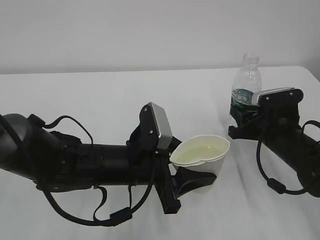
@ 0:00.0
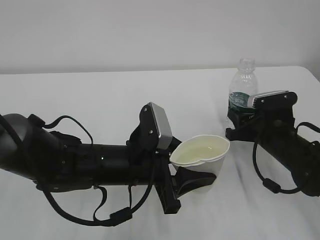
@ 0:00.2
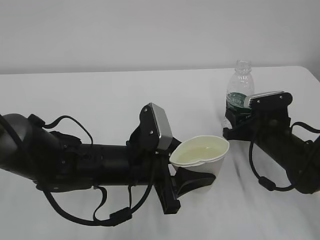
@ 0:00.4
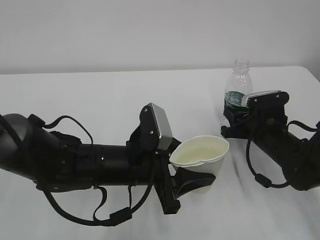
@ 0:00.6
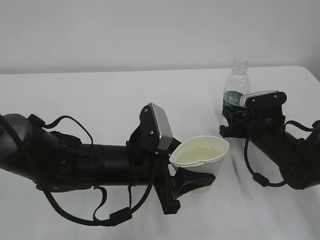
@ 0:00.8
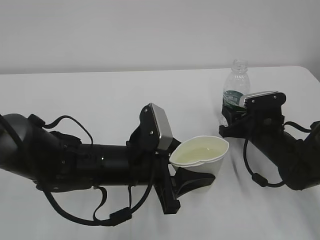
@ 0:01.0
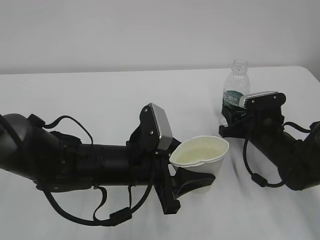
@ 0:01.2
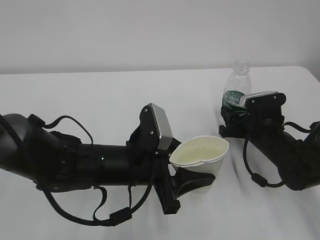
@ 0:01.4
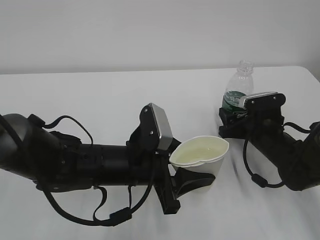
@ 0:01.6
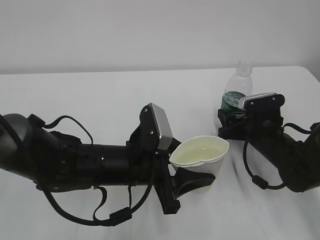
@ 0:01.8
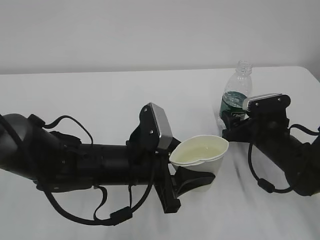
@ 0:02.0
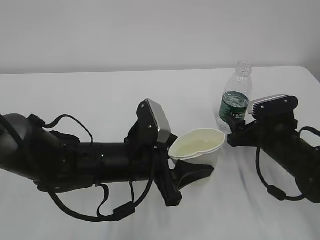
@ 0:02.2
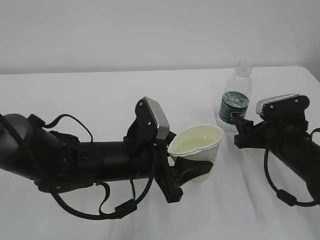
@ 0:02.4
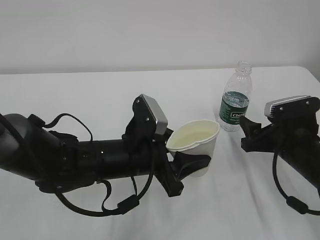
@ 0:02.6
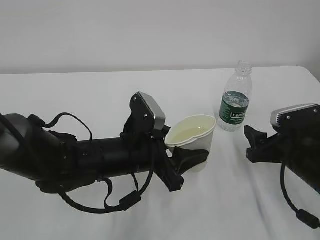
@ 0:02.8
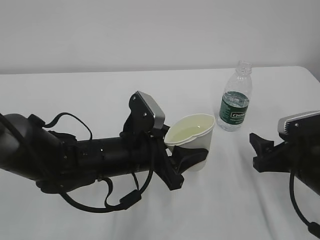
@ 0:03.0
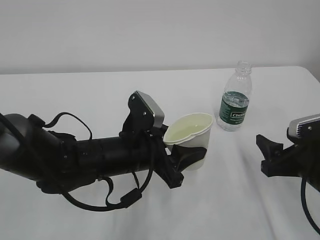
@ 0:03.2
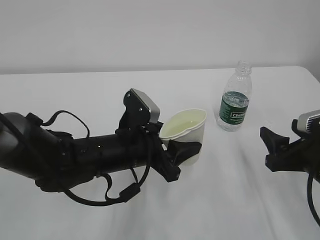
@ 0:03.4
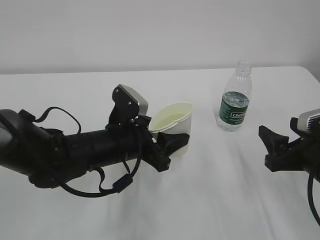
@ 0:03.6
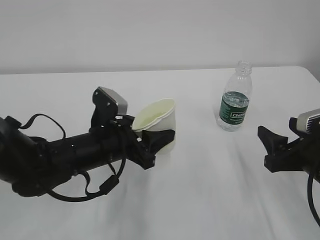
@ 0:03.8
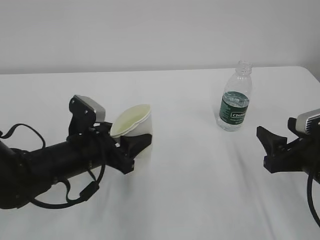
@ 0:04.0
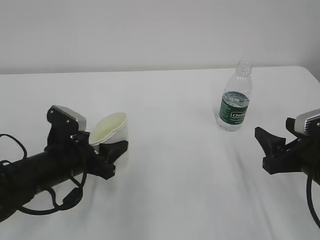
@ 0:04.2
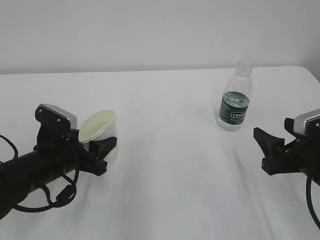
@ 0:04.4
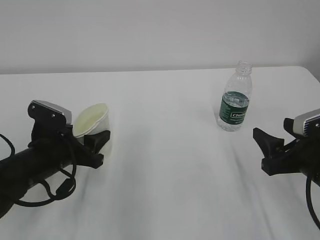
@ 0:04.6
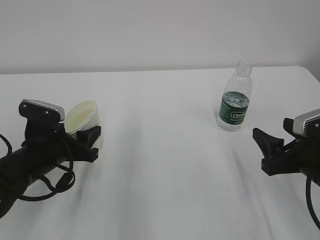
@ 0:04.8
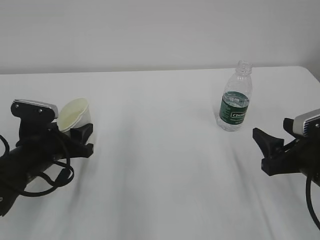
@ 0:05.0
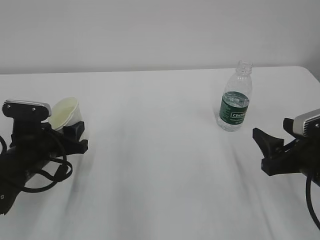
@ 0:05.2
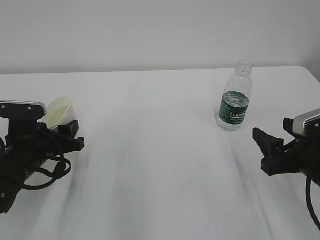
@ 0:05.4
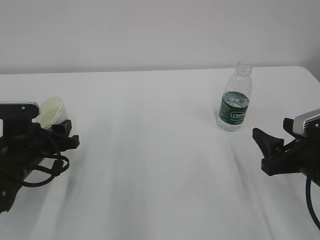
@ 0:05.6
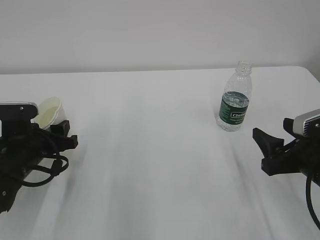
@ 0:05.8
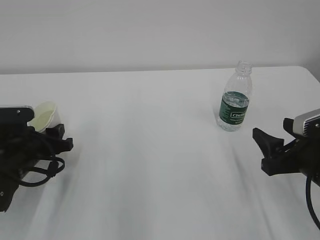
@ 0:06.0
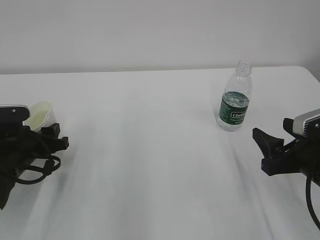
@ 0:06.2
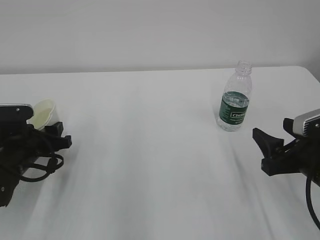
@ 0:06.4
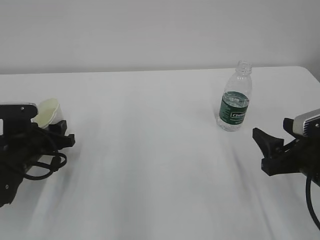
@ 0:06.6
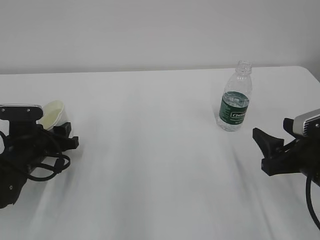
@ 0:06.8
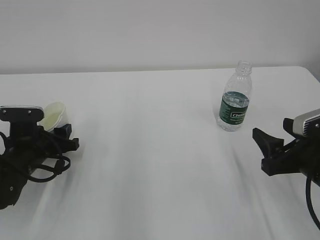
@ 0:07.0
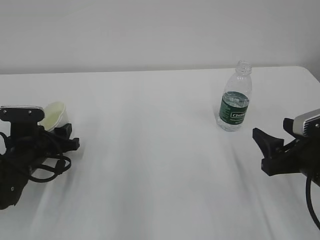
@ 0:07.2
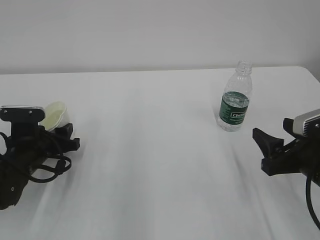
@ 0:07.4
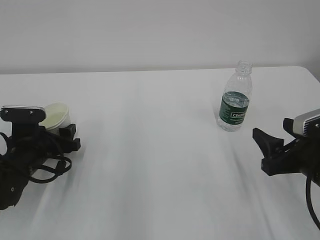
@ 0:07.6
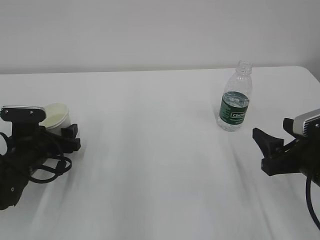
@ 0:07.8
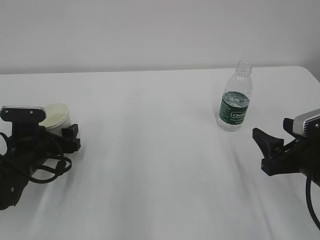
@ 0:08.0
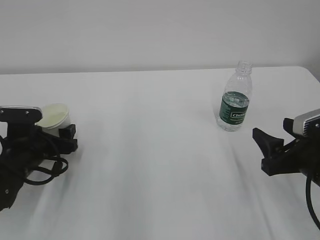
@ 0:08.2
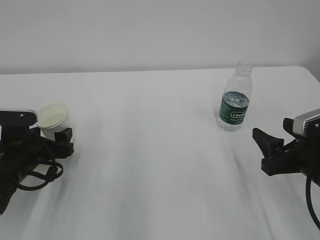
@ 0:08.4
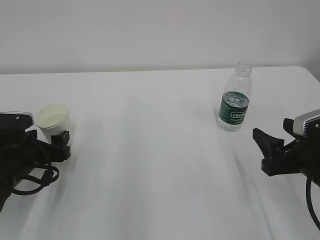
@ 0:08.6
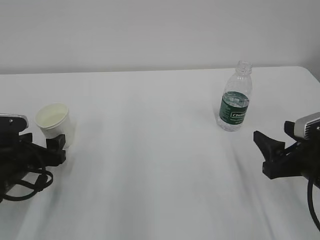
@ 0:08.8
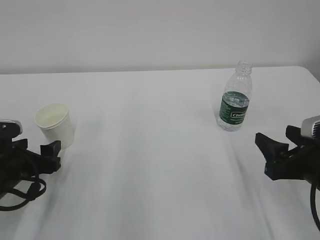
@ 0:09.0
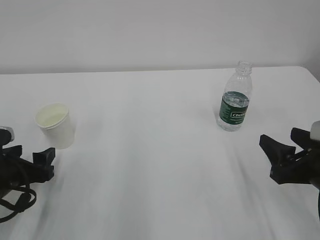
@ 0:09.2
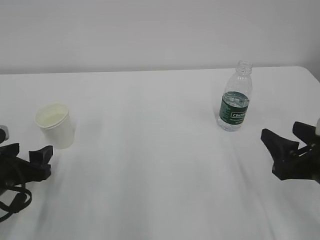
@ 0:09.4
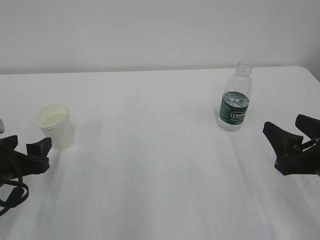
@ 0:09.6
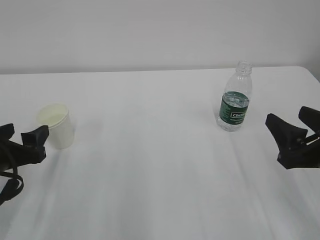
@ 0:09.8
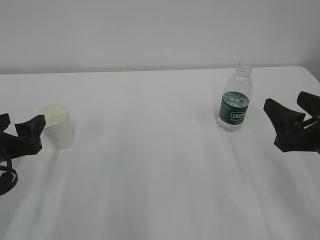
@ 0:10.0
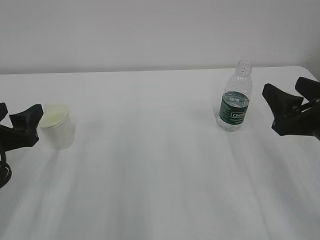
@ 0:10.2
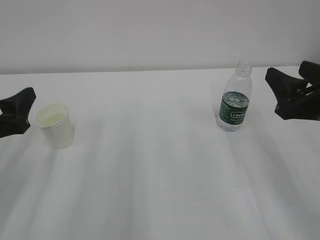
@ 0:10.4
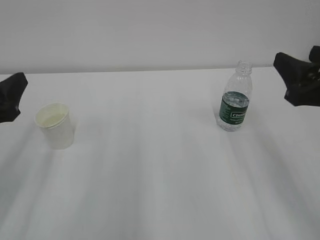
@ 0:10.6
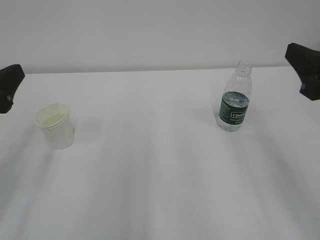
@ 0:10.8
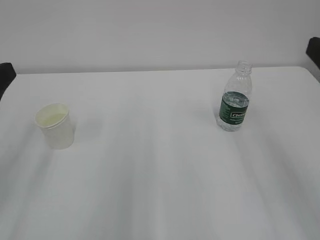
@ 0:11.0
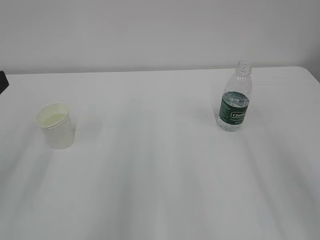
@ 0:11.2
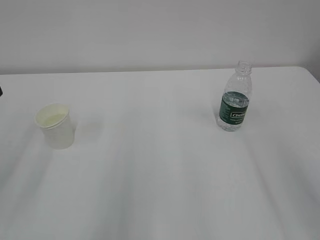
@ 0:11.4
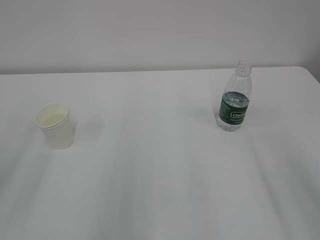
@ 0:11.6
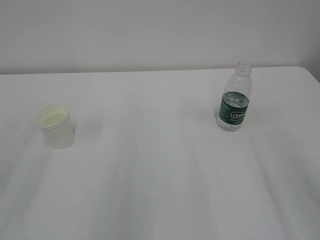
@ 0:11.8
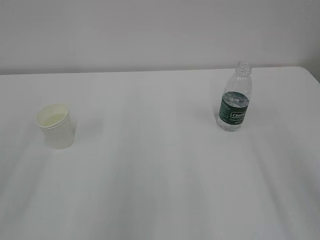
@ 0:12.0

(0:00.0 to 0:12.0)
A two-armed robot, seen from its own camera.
0:00.0 - 0:01.6: The right gripper opens up.
0:01.6 - 0:03.0: The right gripper heads backward, covering roughly 10 cm.
0:03.0 - 0:04.4: The left gripper moves to the left, roughly 15 cm.
0:04.4 - 0:06.0: The left gripper heads to the left, covering roughly 5 cm.
0:06.0 - 0:07.6: The grippers make only small movements.
0:07.6 - 0:09.0: The left gripper is displaced backward by roughly 5 cm.
0:09.0 - 0:10.4: The two grippers go about 10 cm upward.
0:10.4 - 0:12.0: The two grippers go some 15 cm backward and upward.

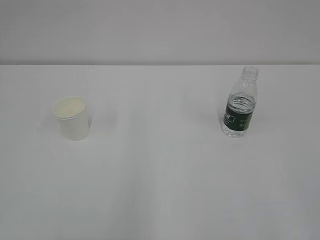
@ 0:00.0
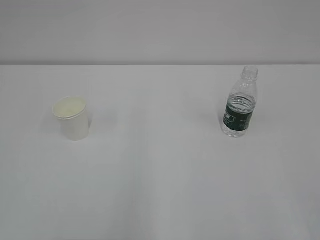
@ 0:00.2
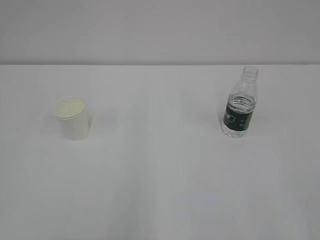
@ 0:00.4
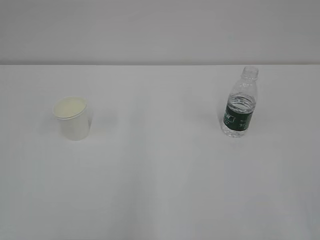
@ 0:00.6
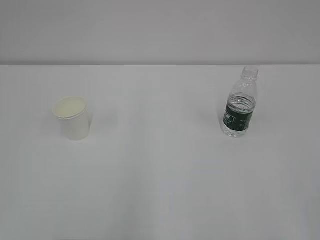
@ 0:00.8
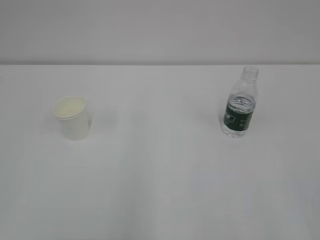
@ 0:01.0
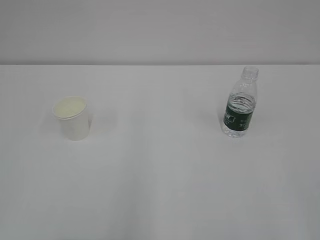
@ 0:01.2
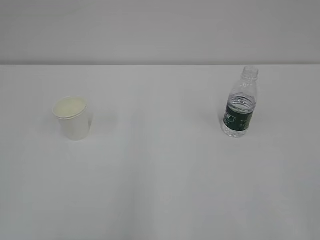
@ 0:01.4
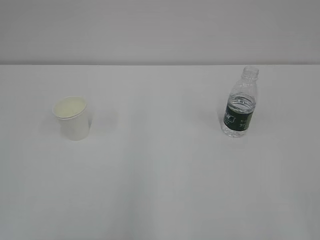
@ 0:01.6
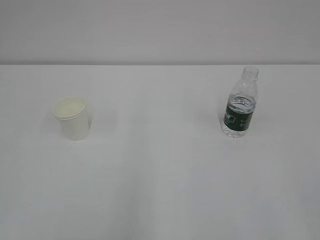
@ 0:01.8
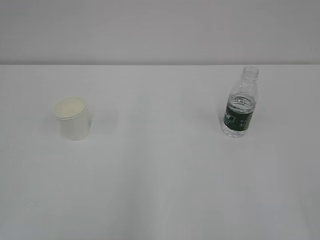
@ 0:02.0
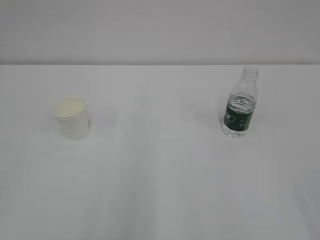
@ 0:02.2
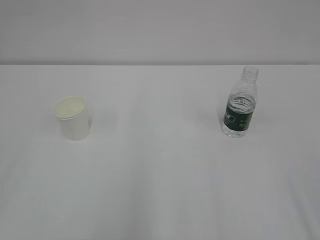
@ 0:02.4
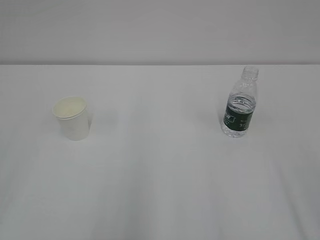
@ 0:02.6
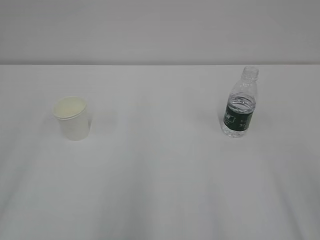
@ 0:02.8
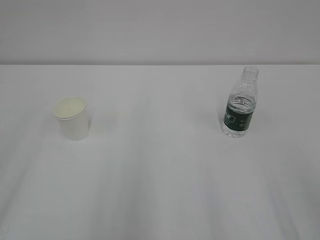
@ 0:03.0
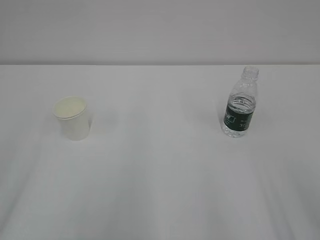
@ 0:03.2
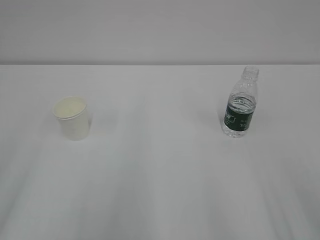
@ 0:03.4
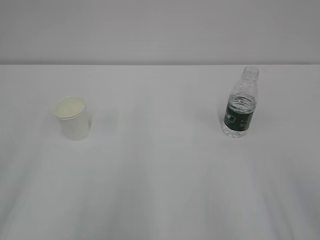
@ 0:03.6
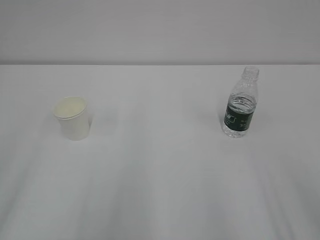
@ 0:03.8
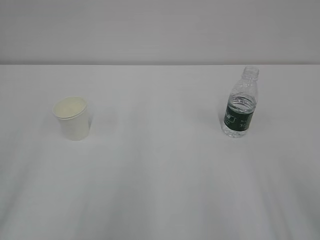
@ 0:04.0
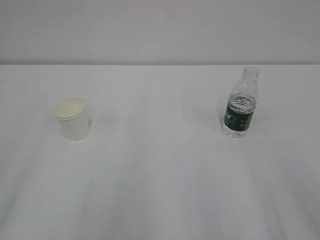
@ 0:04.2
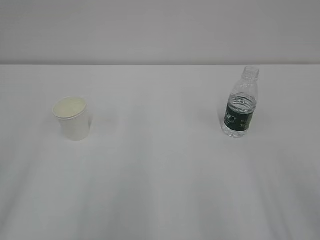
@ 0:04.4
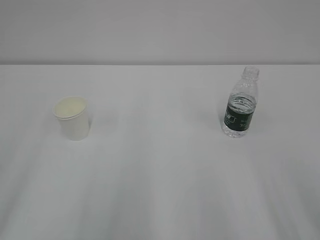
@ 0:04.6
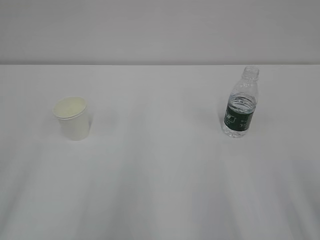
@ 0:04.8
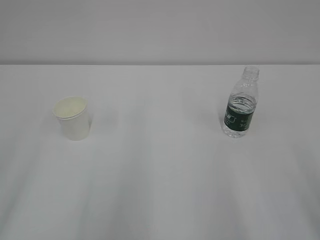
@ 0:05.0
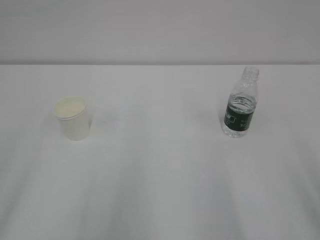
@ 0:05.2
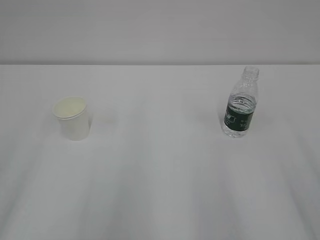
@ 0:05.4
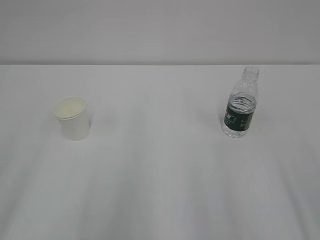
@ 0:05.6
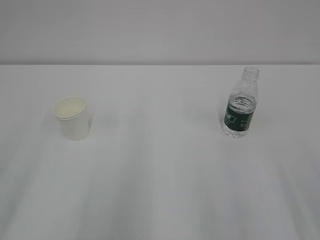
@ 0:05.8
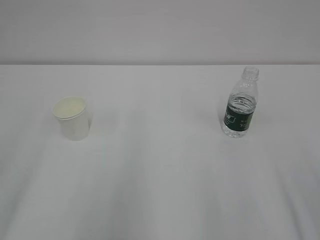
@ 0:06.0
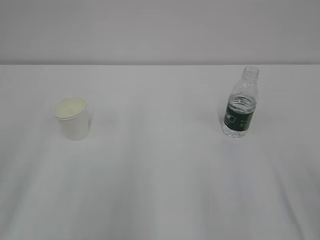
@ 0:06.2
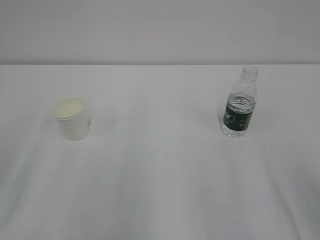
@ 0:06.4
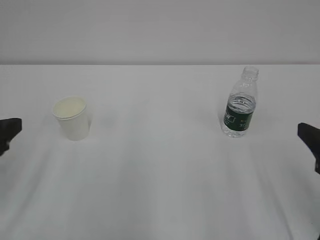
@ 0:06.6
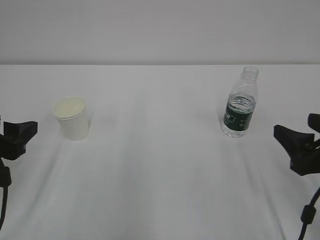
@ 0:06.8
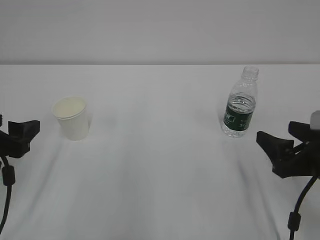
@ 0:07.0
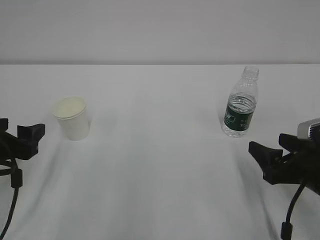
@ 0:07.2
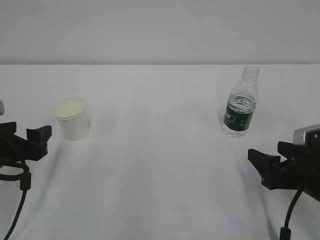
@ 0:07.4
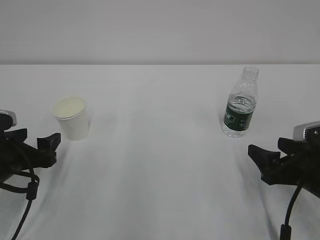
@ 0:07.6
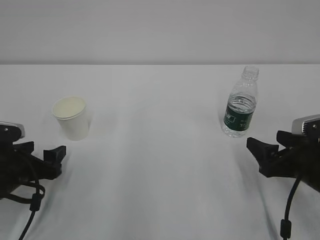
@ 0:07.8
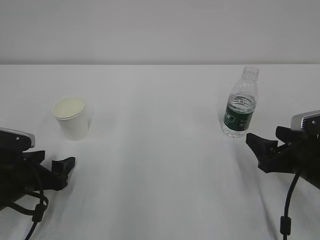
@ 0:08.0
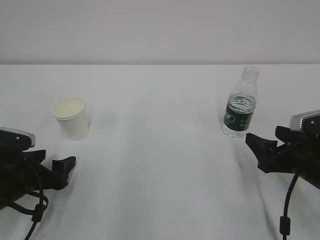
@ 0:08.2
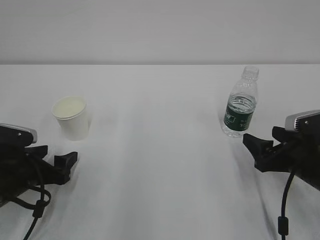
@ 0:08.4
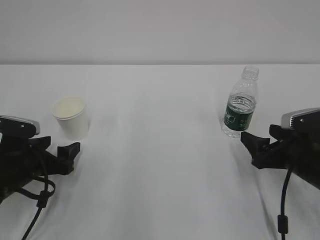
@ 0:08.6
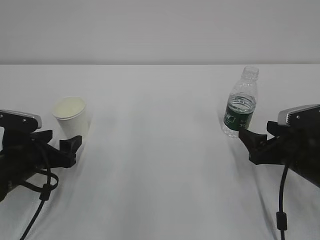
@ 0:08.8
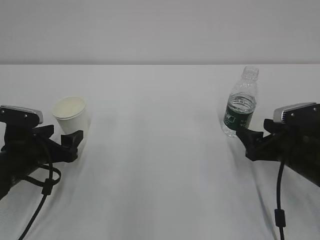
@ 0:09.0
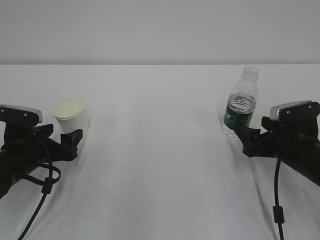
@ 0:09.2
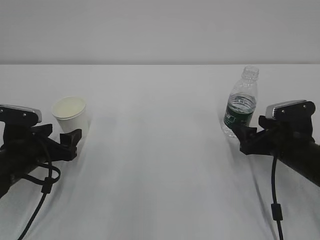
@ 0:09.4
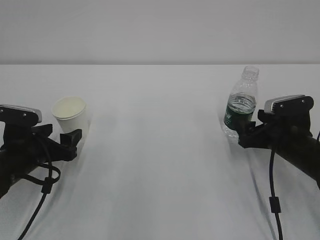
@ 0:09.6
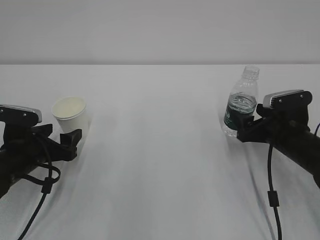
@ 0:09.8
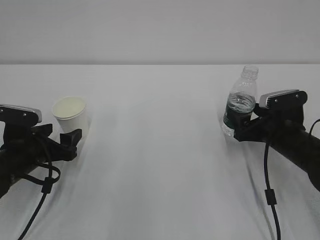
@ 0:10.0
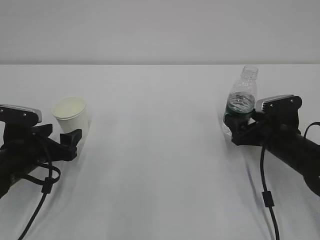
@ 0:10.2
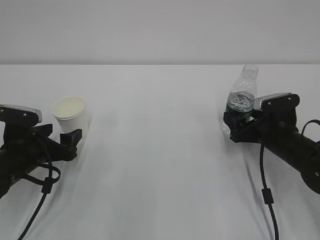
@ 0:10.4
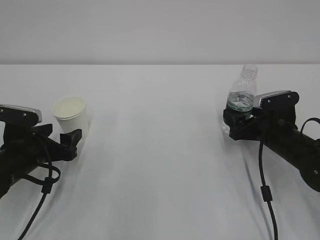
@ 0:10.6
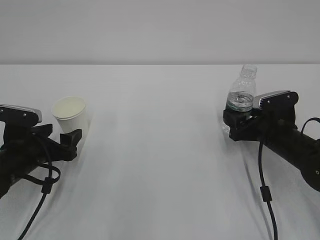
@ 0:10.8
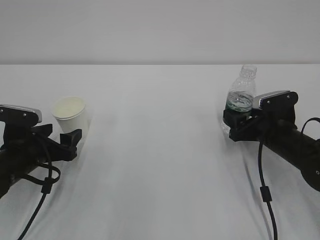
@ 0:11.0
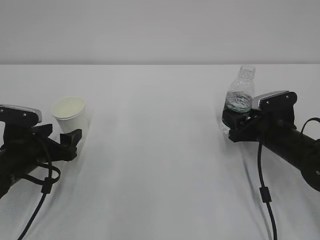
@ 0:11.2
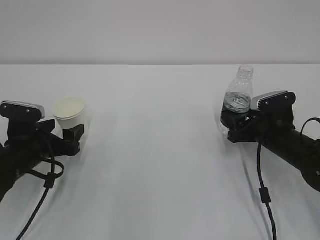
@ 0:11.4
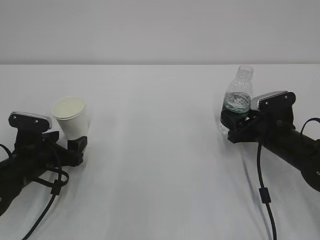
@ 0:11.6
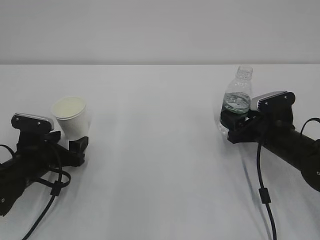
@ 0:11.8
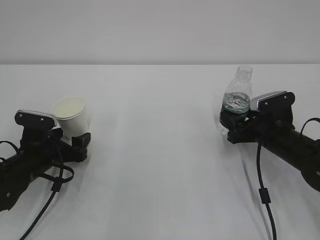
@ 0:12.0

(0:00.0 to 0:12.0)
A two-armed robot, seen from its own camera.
0:06.0 - 0:07.6: The two grippers go about 20 cm downward and forward. The left gripper opens its fingers.
0:07.6 - 0:09.0: The right gripper shifts some 5 cm forward.
0:09.0 - 0:10.4: The right gripper shifts approximately 5 cm forward.
0:10.4 - 0:12.0: The right gripper closes its fingers.
